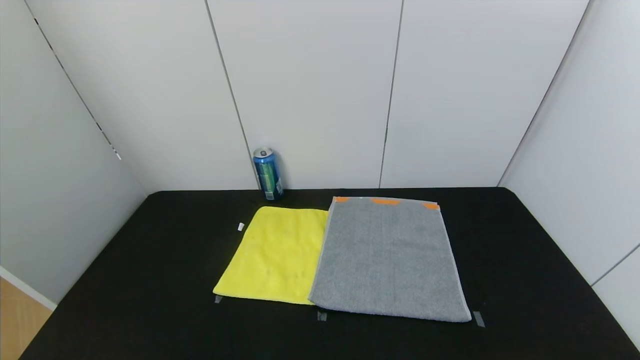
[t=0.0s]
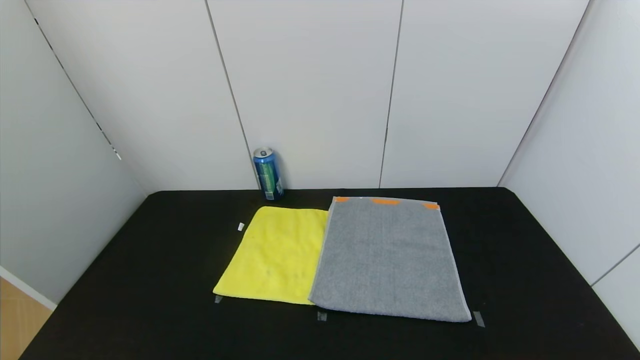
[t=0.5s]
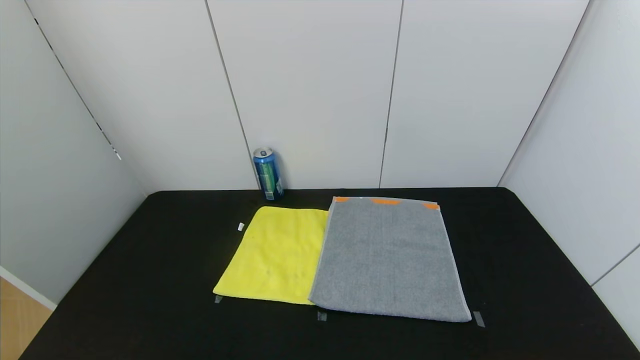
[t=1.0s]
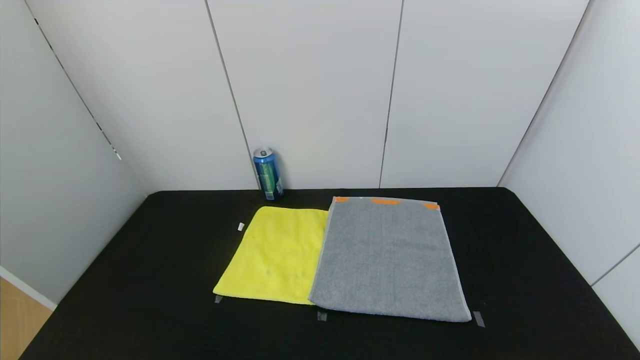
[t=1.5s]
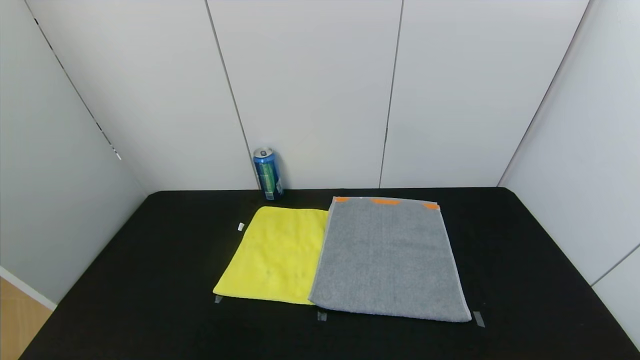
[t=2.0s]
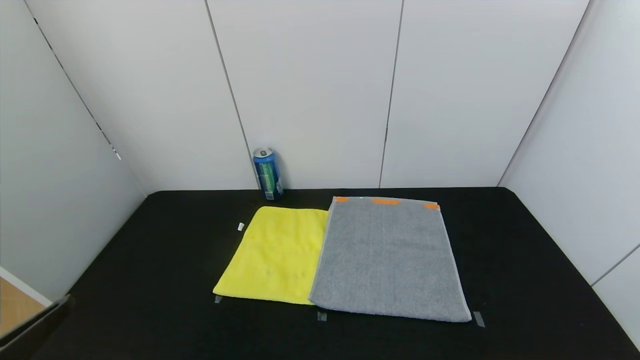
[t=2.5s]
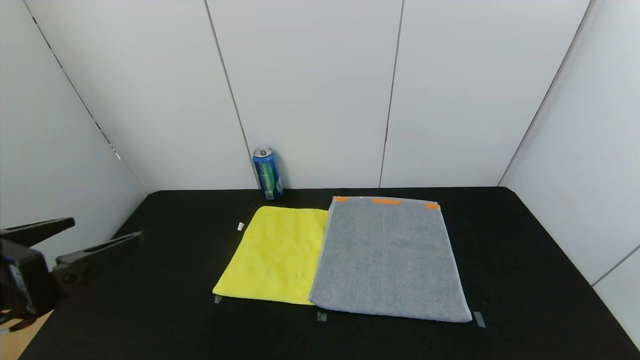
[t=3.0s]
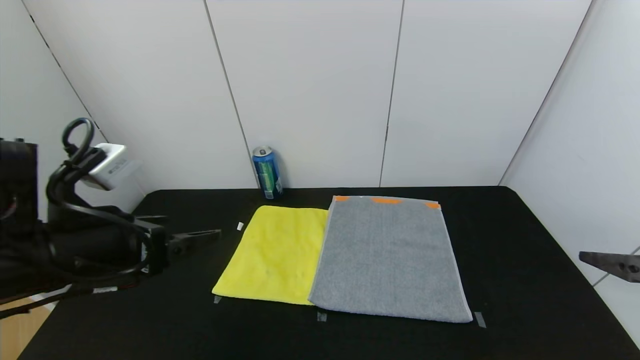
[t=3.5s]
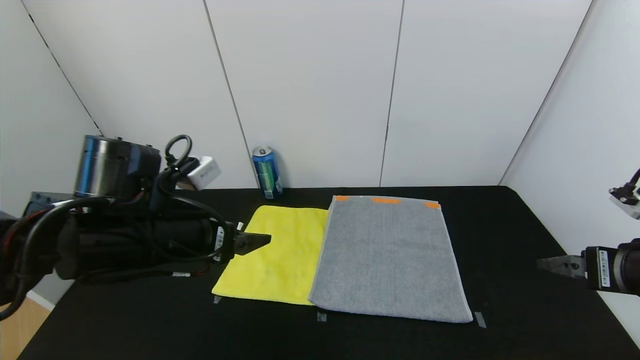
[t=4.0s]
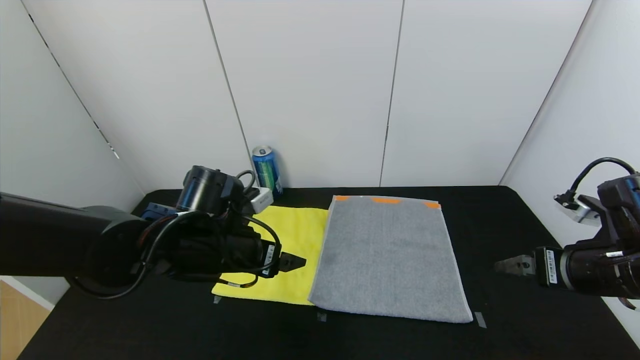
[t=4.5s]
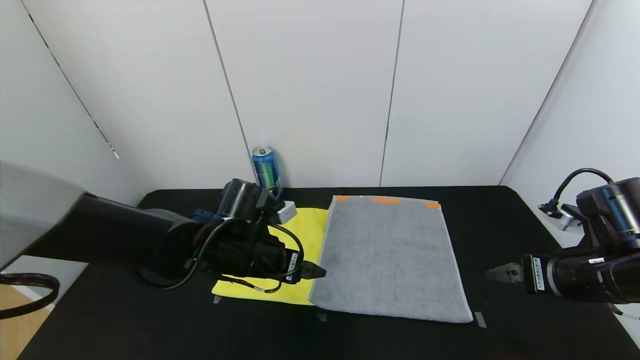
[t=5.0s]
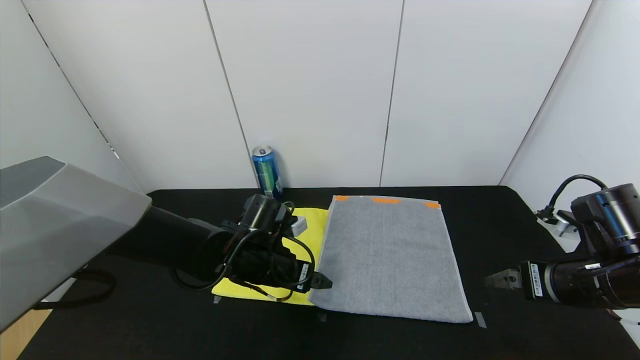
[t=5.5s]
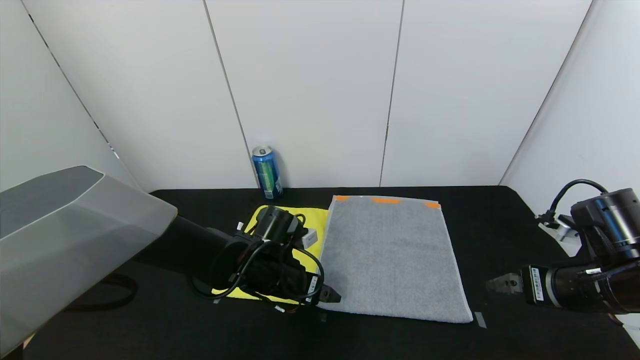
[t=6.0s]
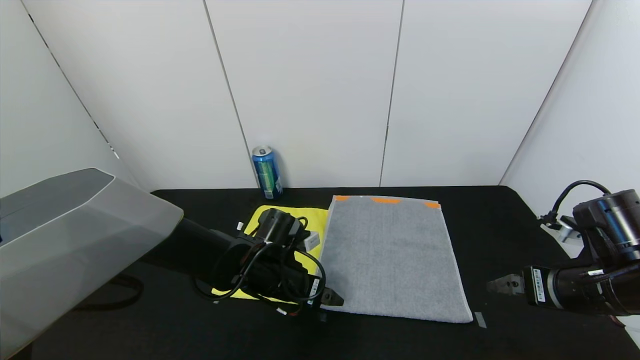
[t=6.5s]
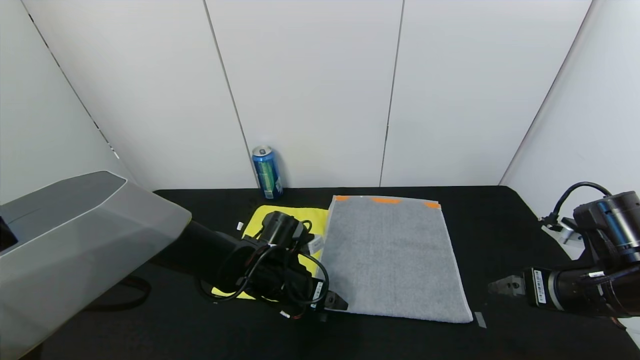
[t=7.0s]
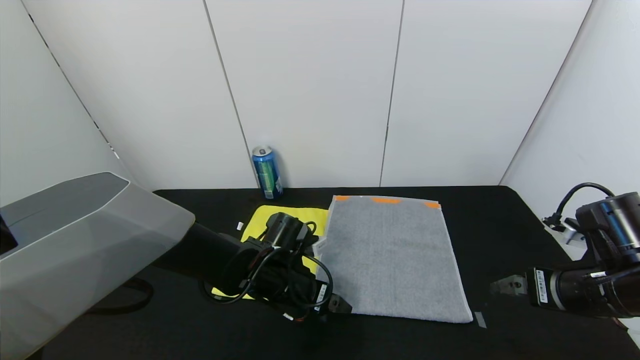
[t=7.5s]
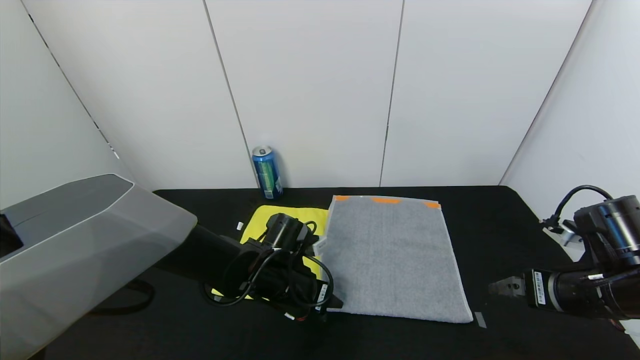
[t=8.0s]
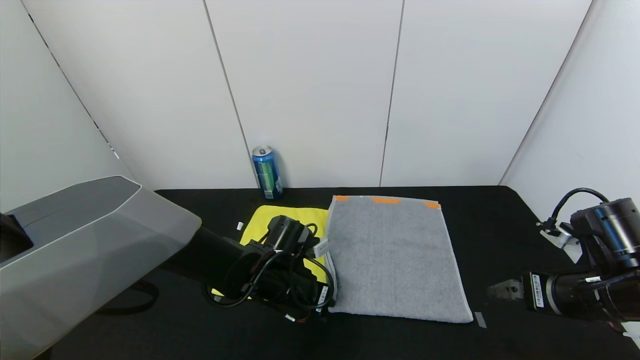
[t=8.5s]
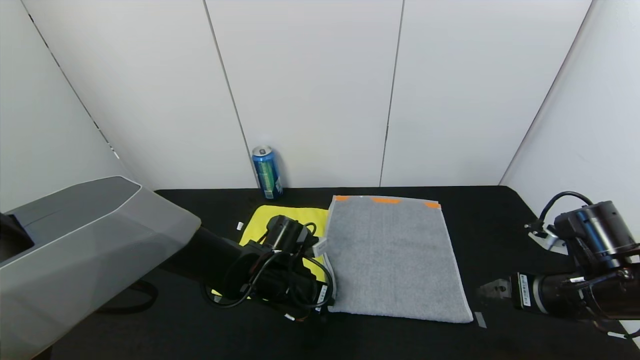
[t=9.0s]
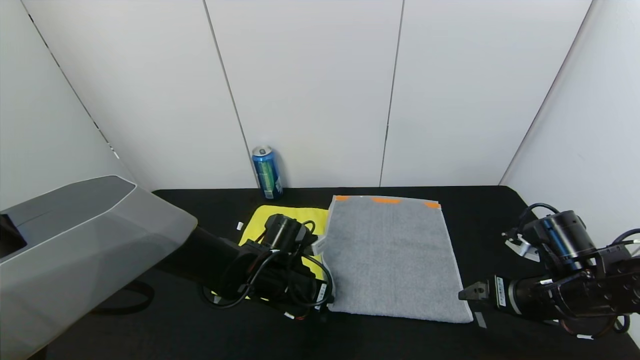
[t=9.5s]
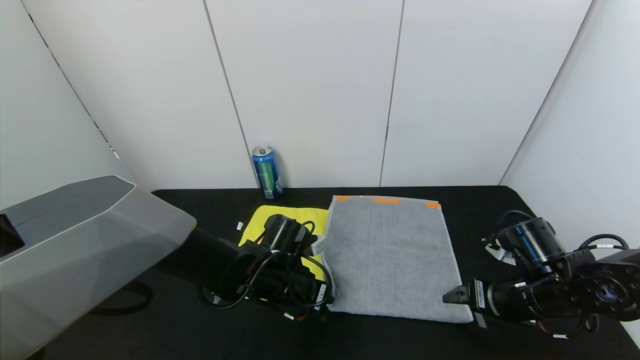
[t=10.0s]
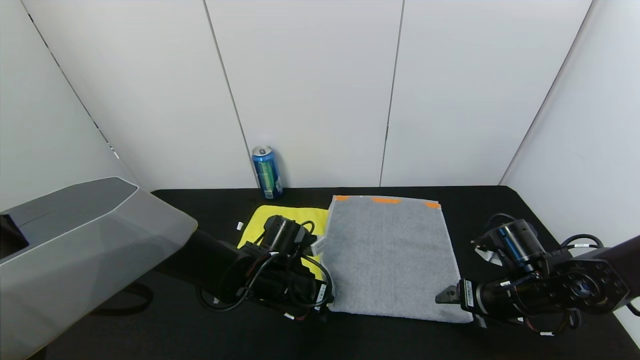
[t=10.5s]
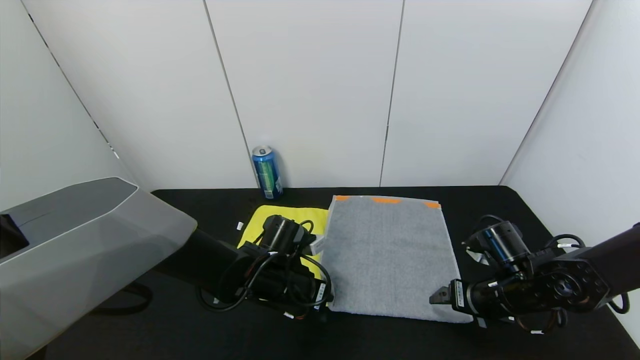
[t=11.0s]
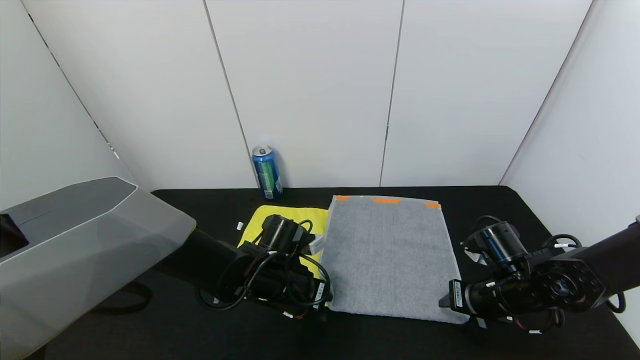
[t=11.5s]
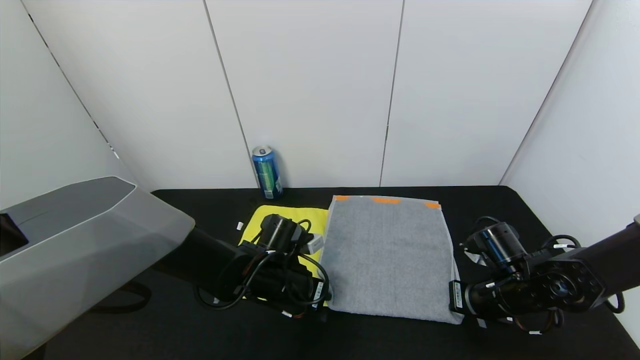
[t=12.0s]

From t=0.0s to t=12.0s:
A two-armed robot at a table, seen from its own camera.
Task of the whole recording: Use the gripper to fold the yellow towel and grey towel in half twice,then put the yellow towel on the grey towel.
From t=2.0s to t=4.0s: Both grippers move forward, roughly 25 cm.
From t=4.0s to t=6.0s: The left gripper goes about 20 cm downward, to the right and forward; the right gripper ends up roughly 5 cm from where it was.
From t=6.0s to t=8.0s: The left gripper closes its fingers.
From t=8.0s to t=10.0s: The left gripper closes its fingers. The right gripper goes some 5 cm downward.
From t=10.0s to t=12.0s: The right gripper closes up.

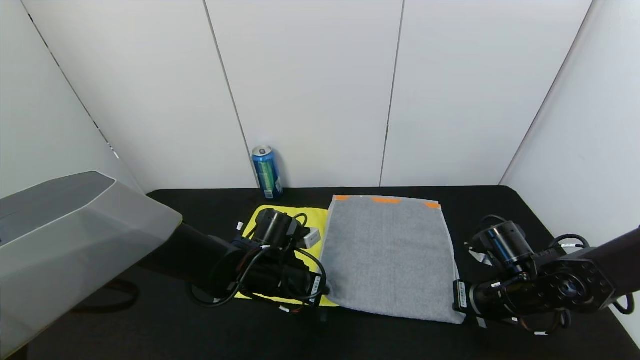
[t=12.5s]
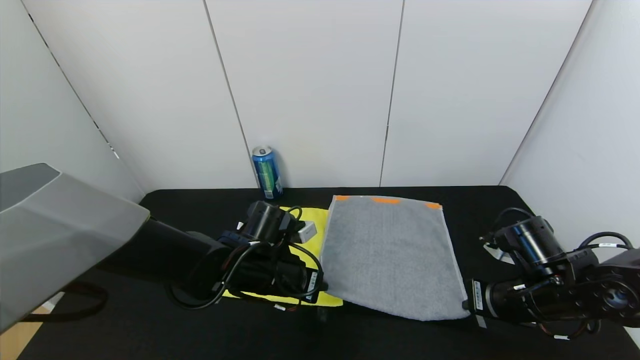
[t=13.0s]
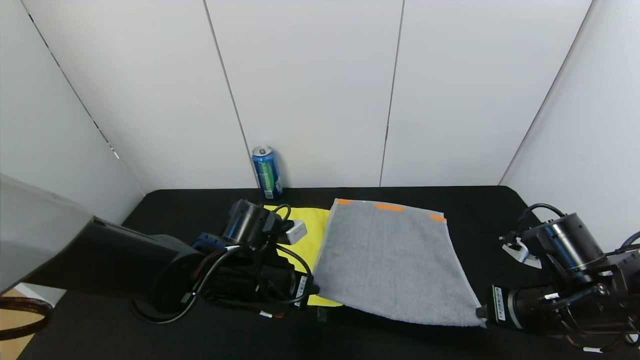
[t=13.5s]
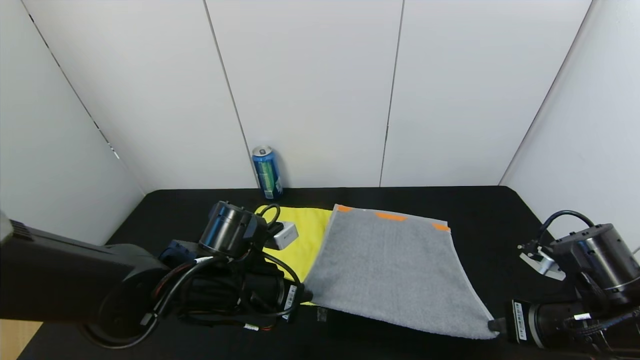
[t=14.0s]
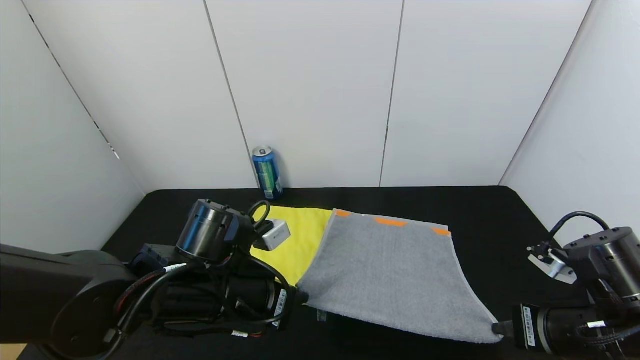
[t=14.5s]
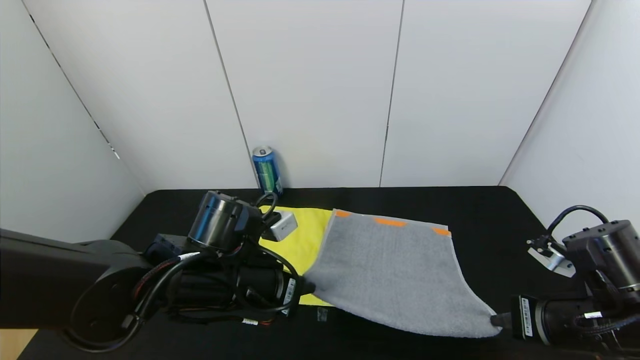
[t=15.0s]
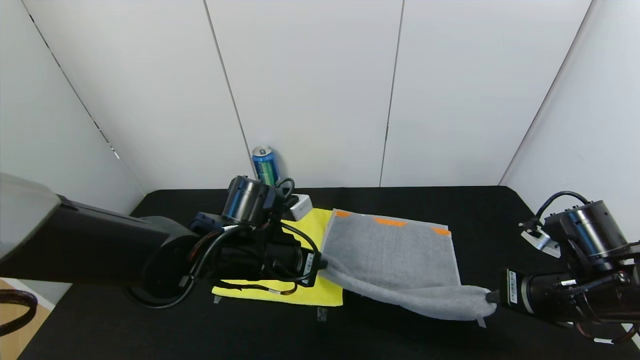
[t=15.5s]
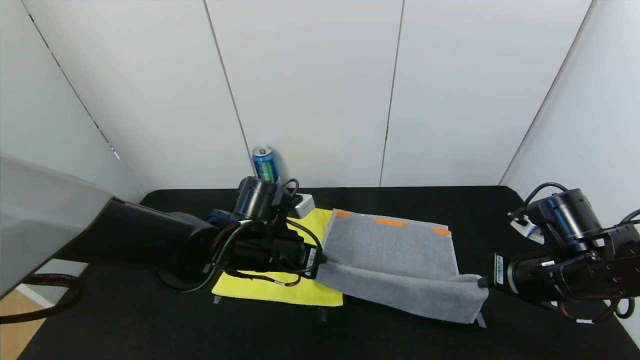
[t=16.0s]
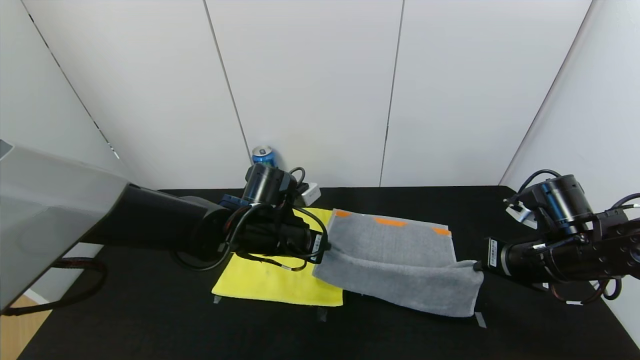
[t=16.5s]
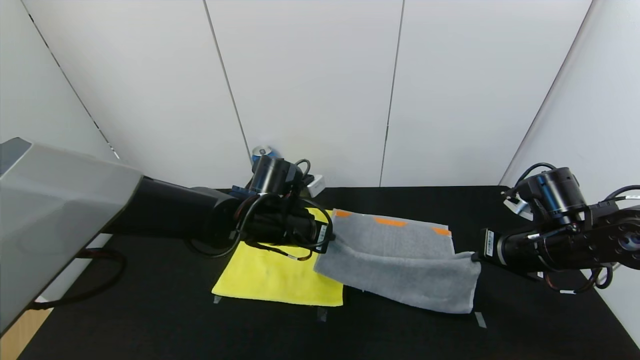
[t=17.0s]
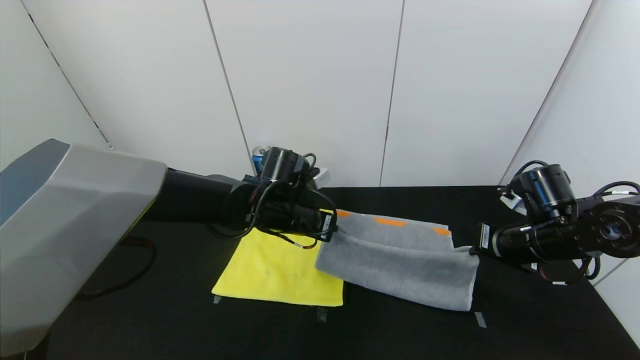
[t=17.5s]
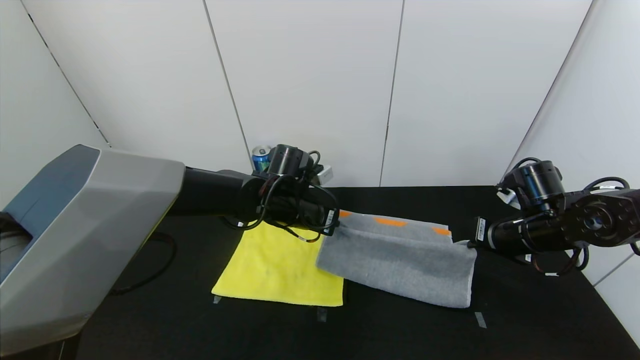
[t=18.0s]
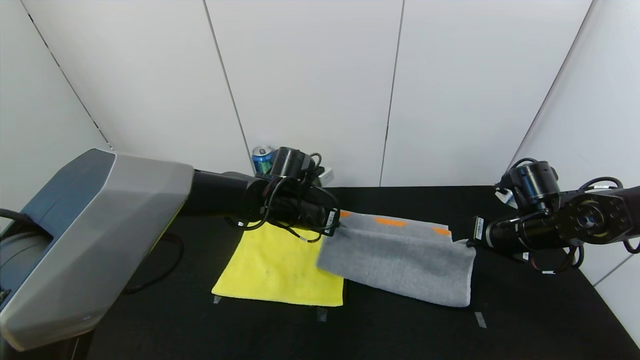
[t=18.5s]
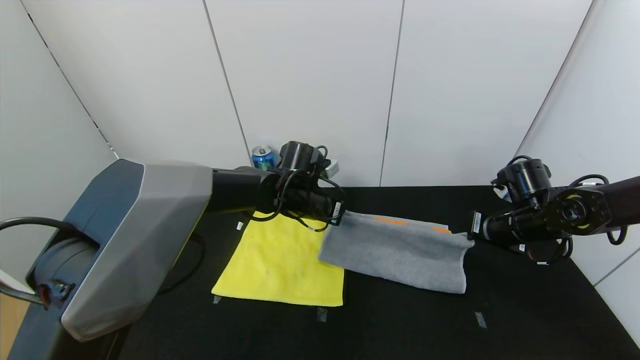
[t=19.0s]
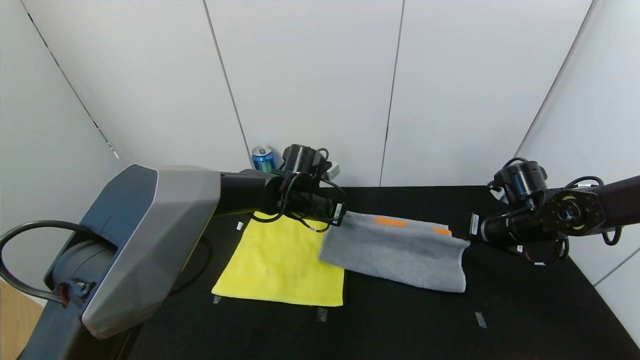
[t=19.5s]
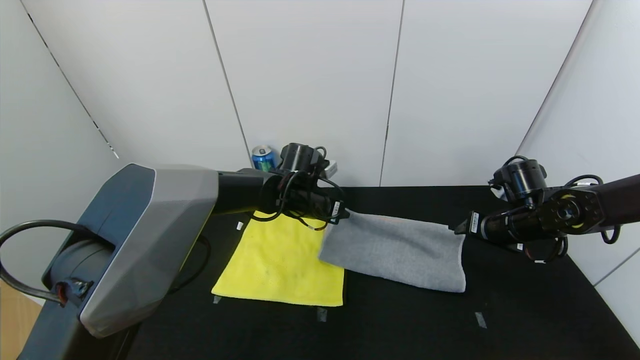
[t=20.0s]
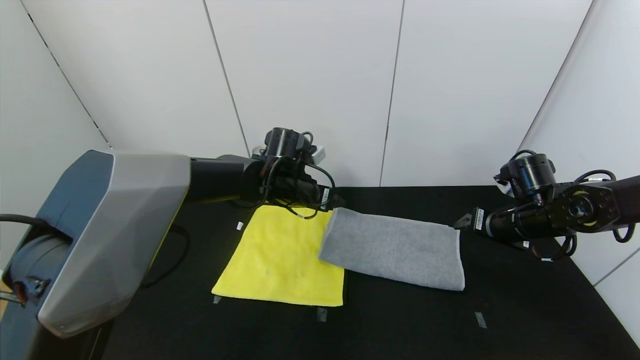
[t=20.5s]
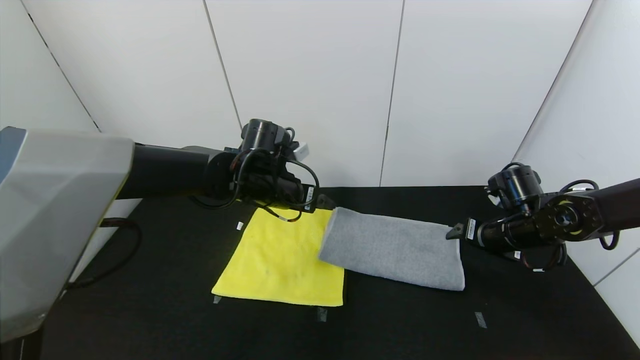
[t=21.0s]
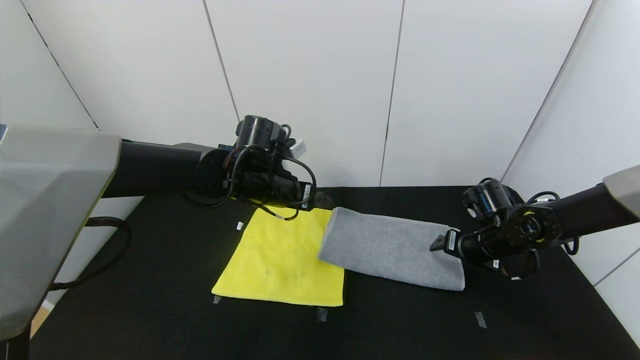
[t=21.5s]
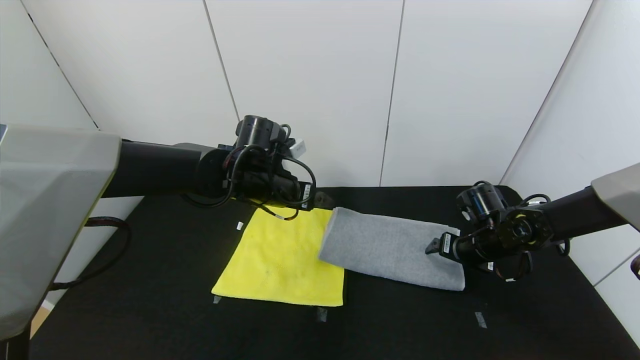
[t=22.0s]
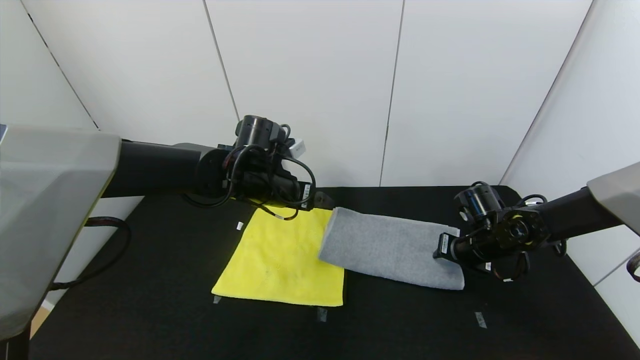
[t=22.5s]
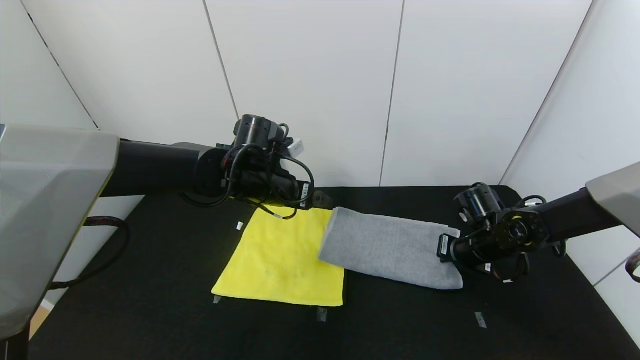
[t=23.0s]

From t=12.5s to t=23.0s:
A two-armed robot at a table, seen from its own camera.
Task of the whole recording: Use the gripper to fold the yellow towel and grey towel in half twice,then put the yellow towel on the grey towel.
Step, from t=12.5s to t=20.0s: Fold the gray towel upwards with the left gripper.
Step, from t=12.5s to t=20.0s: Fold the gray towel upwards with the right gripper.
From t=12.5s to t=14.5s: The grippers both shift backward and upward by approximately 10 cm.
From t=14.5s to t=16.5s: Both grippers travel together forward, approximately 10 cm.
From t=16.5s to t=19.0s: The grippers both shift forward by roughly 10 cm.
From t=19.0s to t=21.0s: The right gripper opens, while the left gripper moves approximately 5 cm, and opens its fingers.
From t=21.0s to t=23.0s: The right gripper changes place by some 5 cm, and closes.
